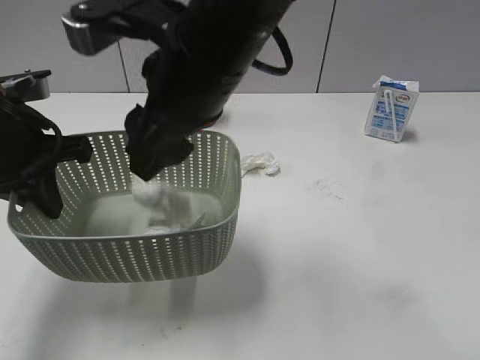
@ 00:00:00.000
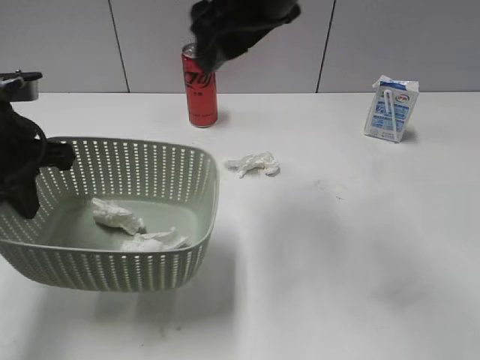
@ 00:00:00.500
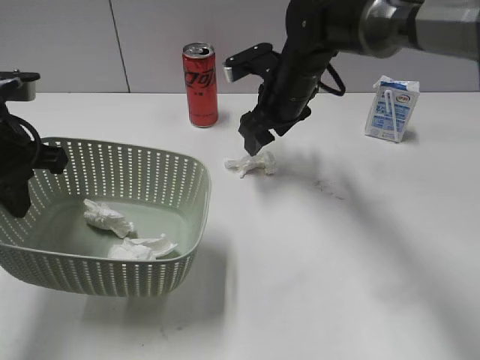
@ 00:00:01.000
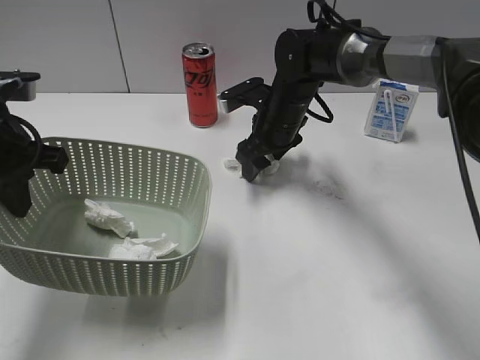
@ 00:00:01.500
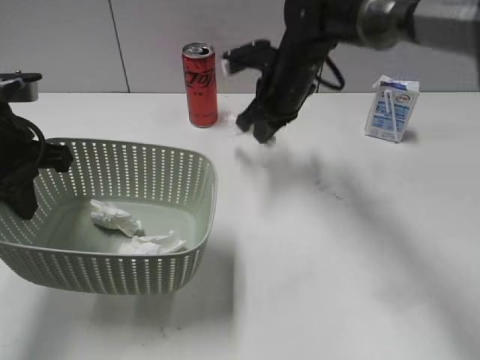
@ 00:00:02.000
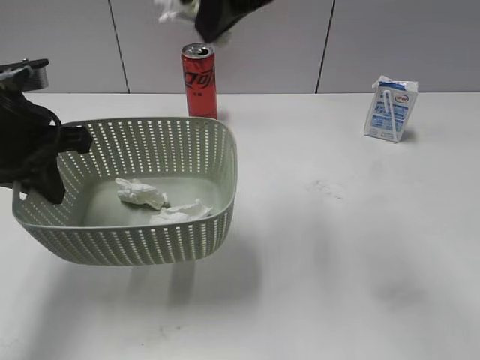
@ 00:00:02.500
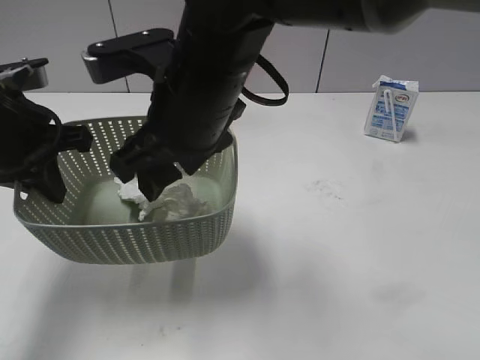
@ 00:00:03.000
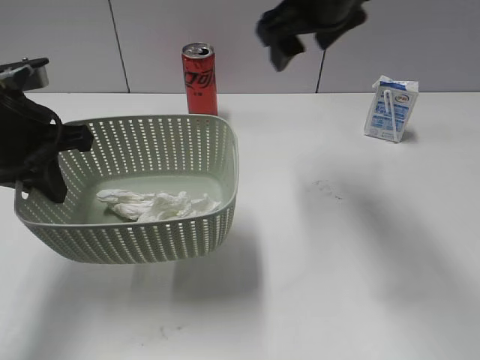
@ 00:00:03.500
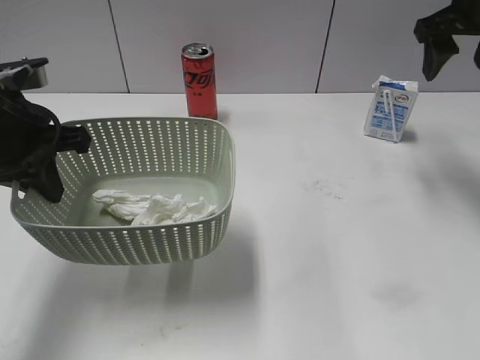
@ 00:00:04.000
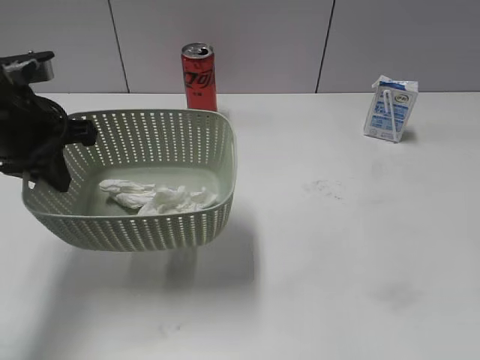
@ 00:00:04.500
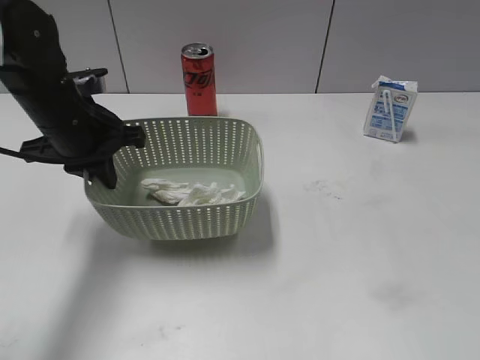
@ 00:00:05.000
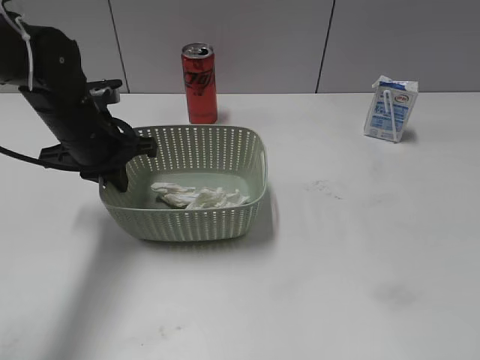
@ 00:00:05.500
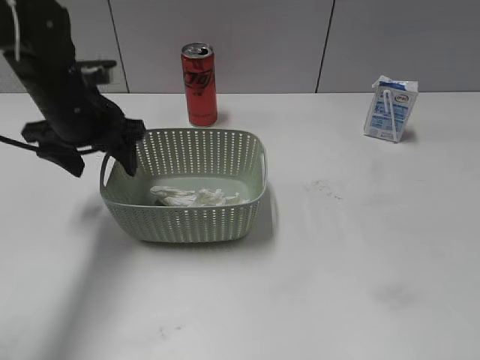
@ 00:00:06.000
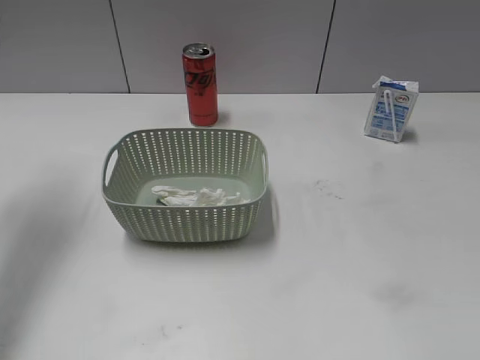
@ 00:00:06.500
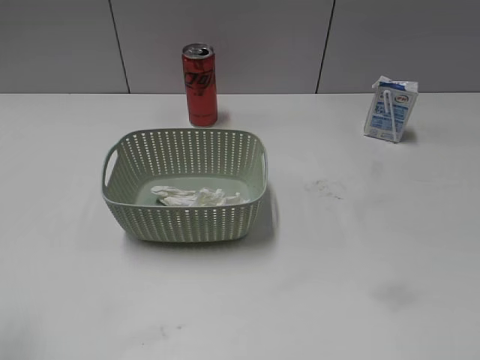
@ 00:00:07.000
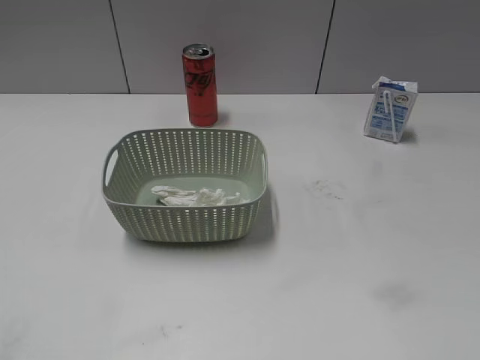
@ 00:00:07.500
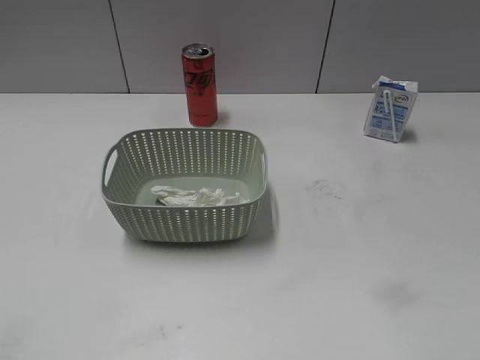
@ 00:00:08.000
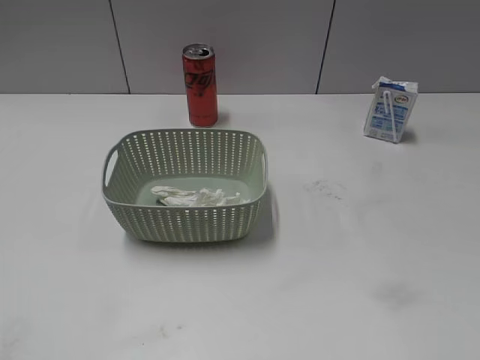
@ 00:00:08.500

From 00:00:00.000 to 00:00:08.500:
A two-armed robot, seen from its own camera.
Step, from 00:00:00.500 to 00:00:01.500: Grasp the waste paper with right gripper.
Step, from 00:00:02.000 to 00:00:03.000: Place the waste paper in the basket with right gripper.
Step, from 00:00:03.500 to 00:00:06.000: Place the basket on the table with left gripper.
From 00:00:00.000 to 00:00:02.000: The right gripper goes up and down, approximately 20 cm each way, reversing 2 times, and closes.
From 00:00:02.000 to 00:00:04.000: The right gripper goes roughly 25 cm to the right and upward, and opens up.
From 00:00:04.000 to 00:00:06.500: The left gripper travels upward, to the left and forward by about 15 cm, and opens up. The right gripper travels backward by about 40 cm.
From 00:00:06.500 to 00:00:08.500: The left gripper goes about 35 cm backward.
